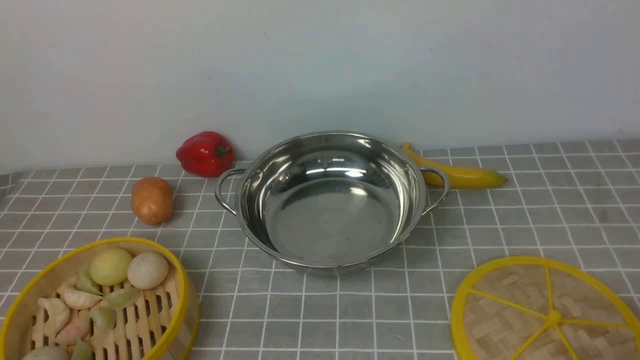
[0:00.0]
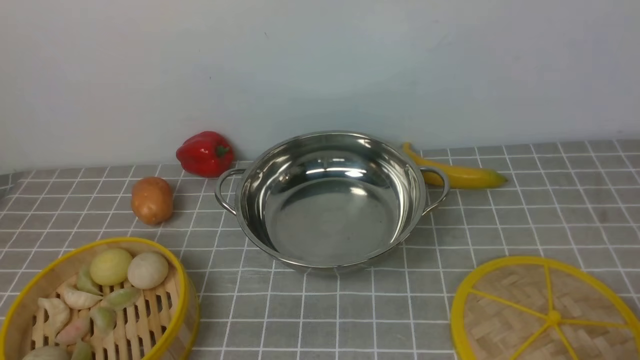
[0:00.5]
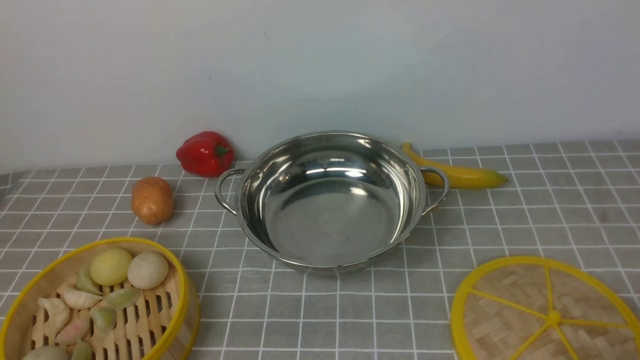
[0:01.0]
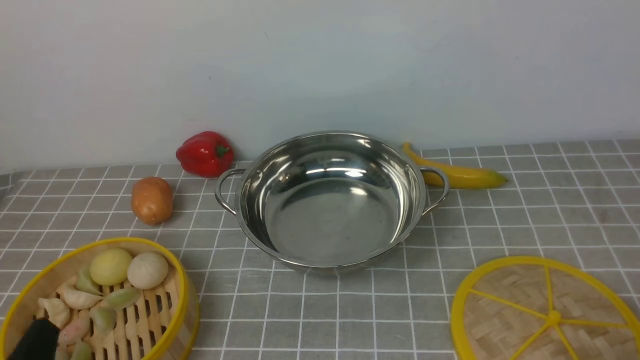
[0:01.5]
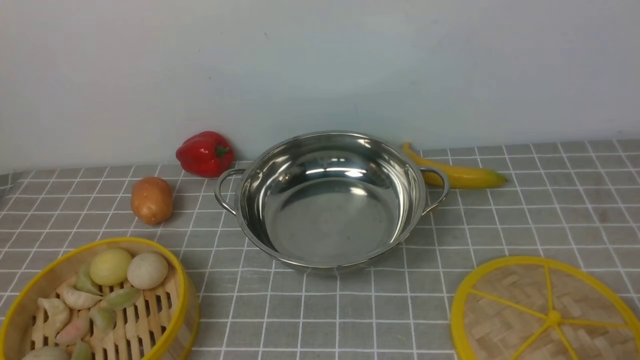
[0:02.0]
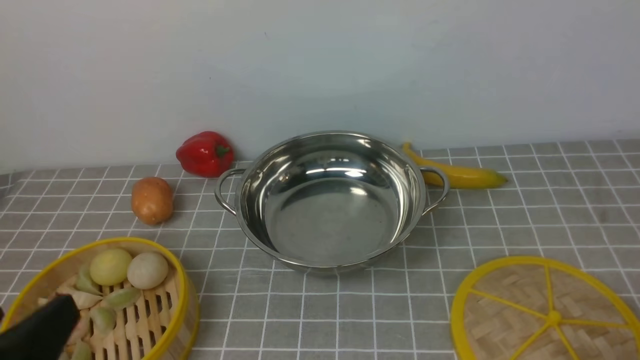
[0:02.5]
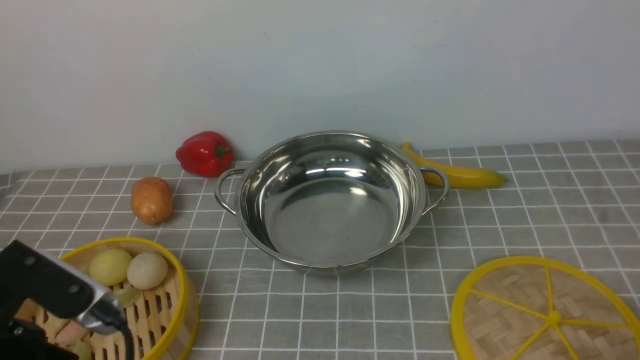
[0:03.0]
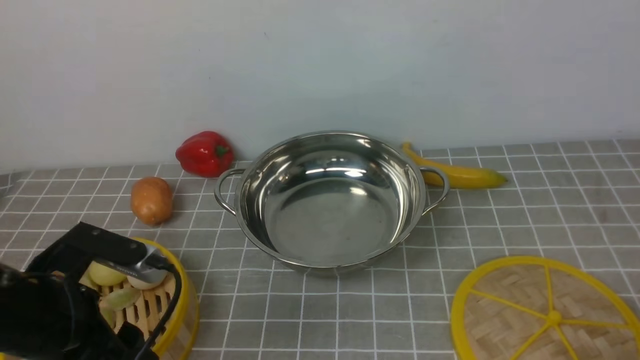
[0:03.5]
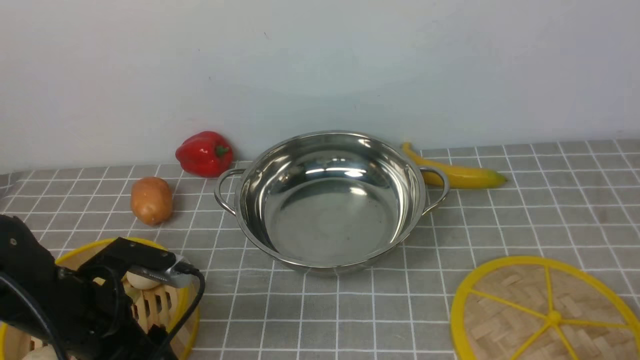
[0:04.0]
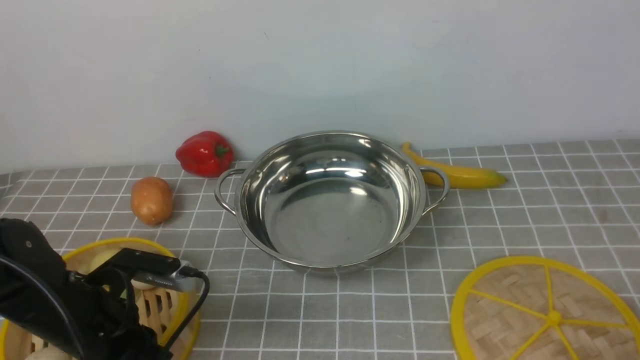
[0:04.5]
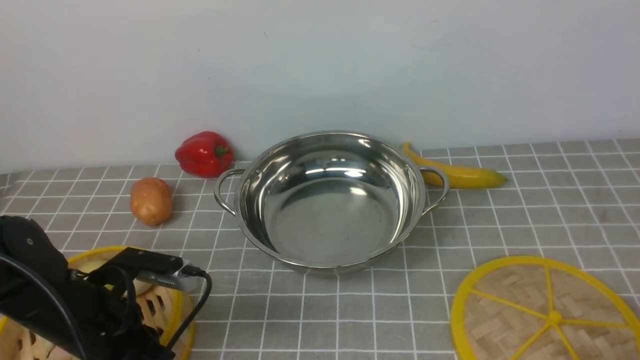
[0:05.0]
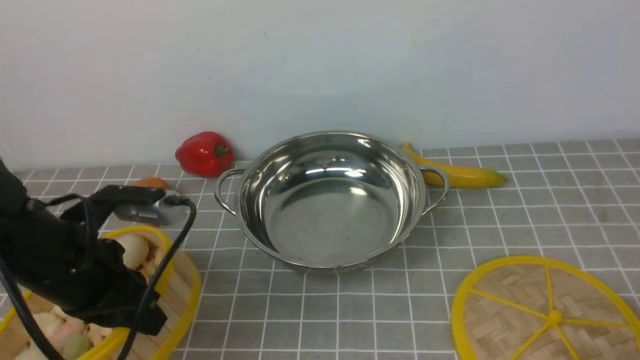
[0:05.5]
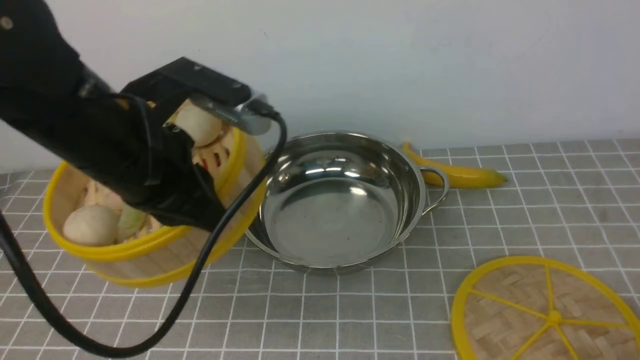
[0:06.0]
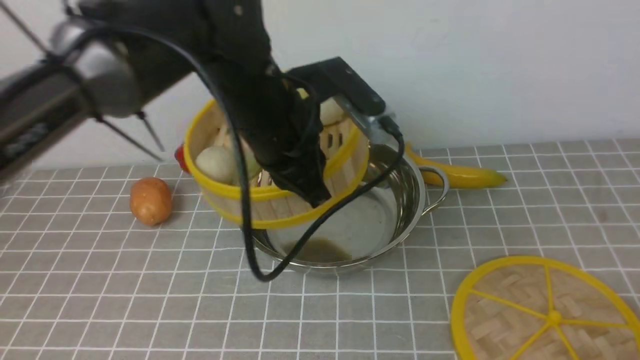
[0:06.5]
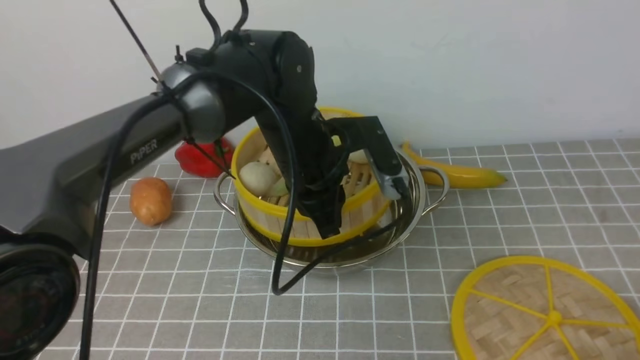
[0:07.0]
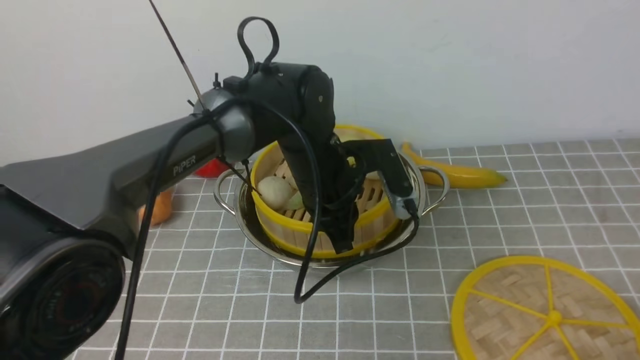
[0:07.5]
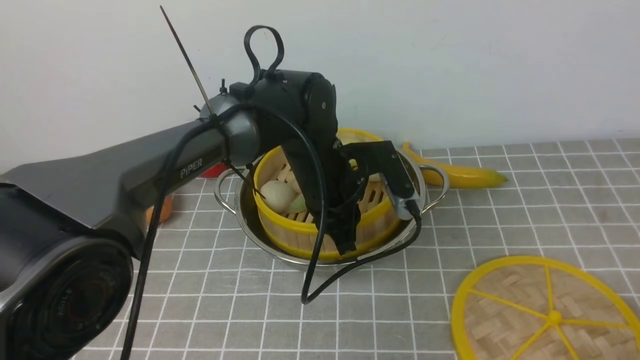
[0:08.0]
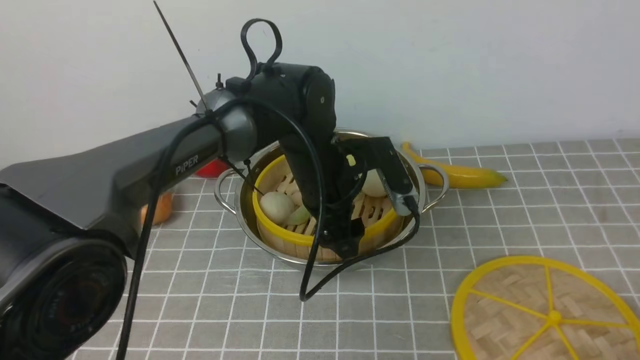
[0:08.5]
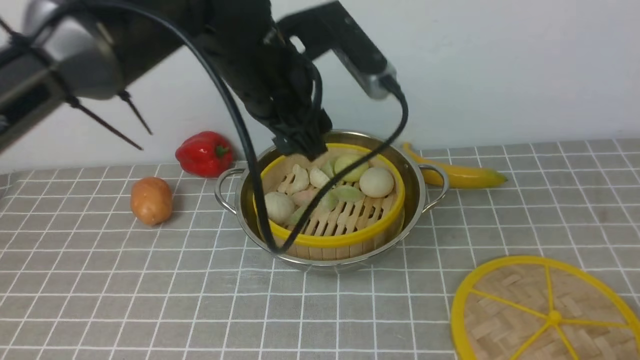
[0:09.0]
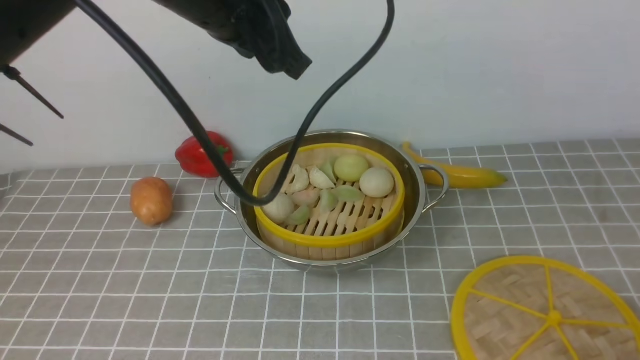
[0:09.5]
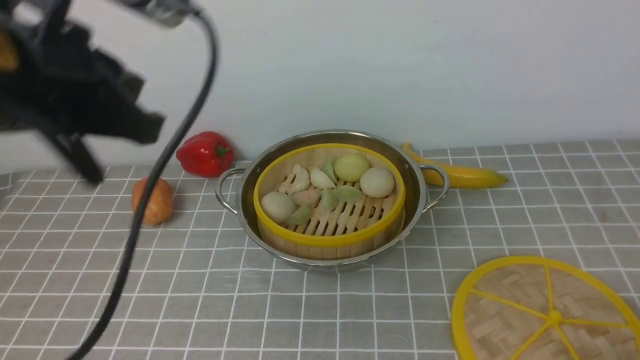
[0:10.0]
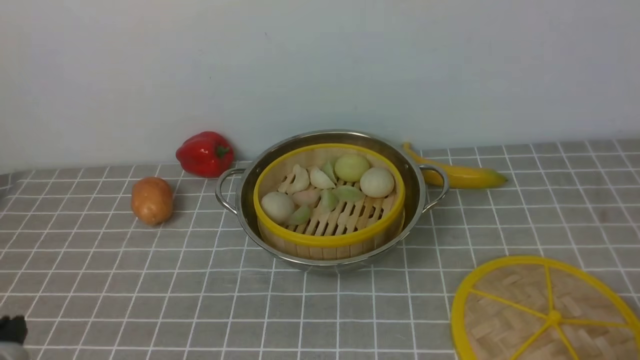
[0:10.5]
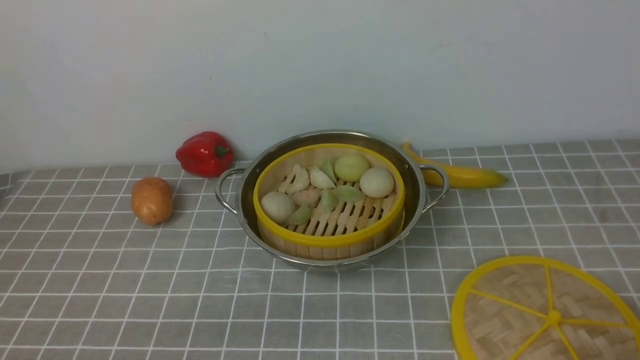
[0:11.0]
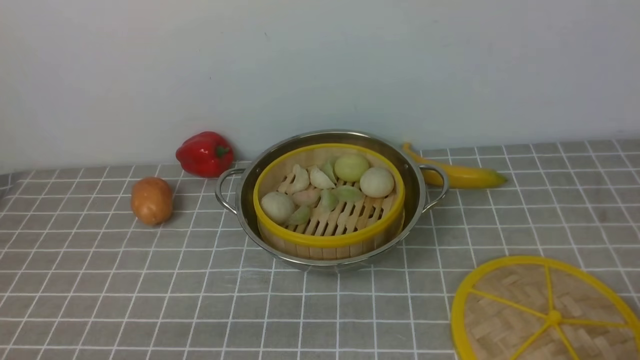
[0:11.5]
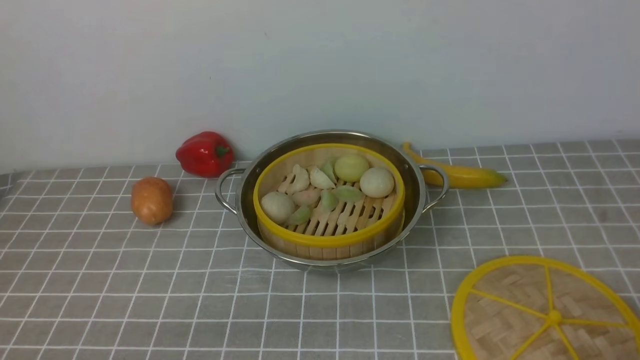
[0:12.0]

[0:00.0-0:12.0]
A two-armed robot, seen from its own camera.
Task of the whole recording: place the steamer in the pot on the grey tablecloth, and put the lid on the steamer.
Step, 0:00.0 to 0:05.0: use the left arm to lift the steamer closest to it.
Step, 0:05.5 to 0:08.5: use the left arm to put the steamer into the iron steamer pot in the middle.
0:02.0 to 0:04.0: The left gripper shifts approximately 15 cm forward.
0:04.0 to 0:06.0: The left gripper heads upward and to the right, covering some 20 cm, and closes its fingers.
0:06.0 to 0:08.0: The left gripper travels downward, to the right and forward by approximately 20 cm.
0:08.0 to 0:10.0: The left gripper goes approximately 30 cm upward, to the left and backward, and opens and closes again.
0:10.0 to 0:12.0: The left gripper is displaced downward and backward by some 25 cm.

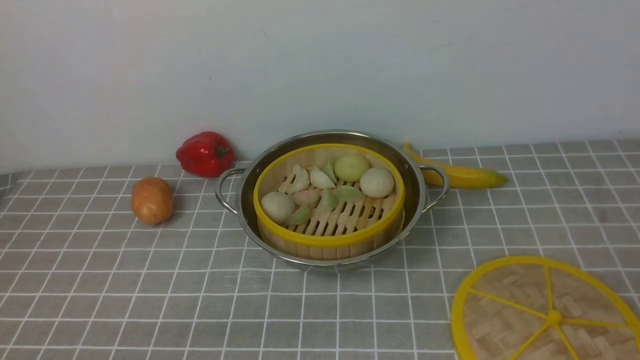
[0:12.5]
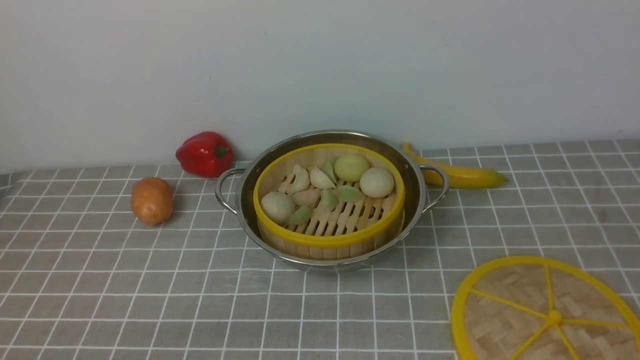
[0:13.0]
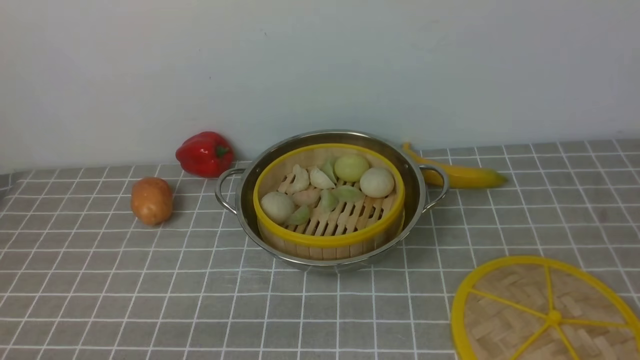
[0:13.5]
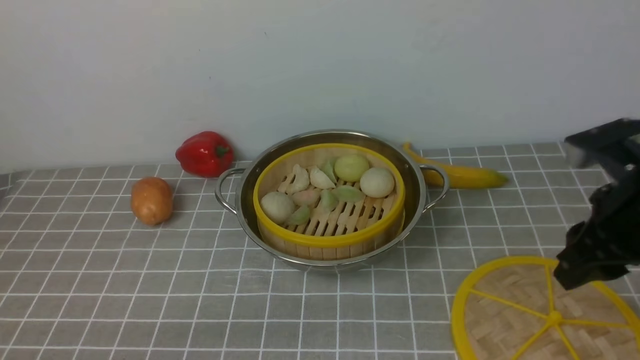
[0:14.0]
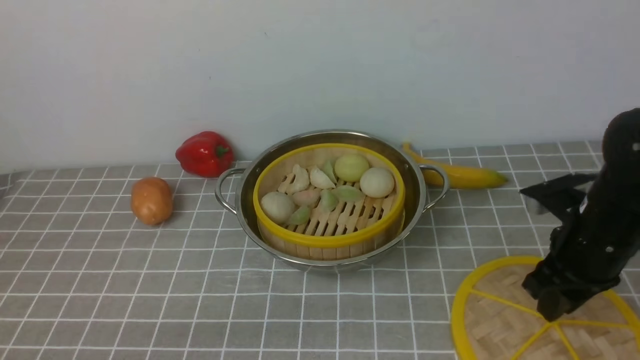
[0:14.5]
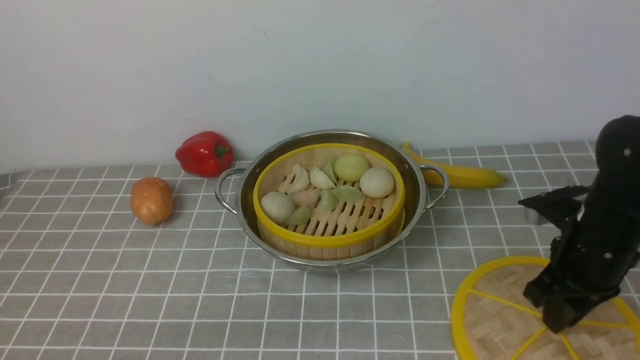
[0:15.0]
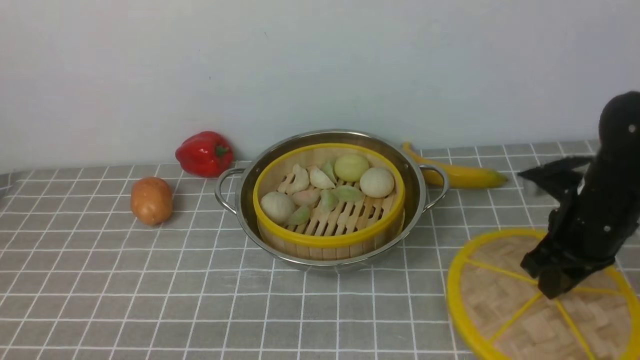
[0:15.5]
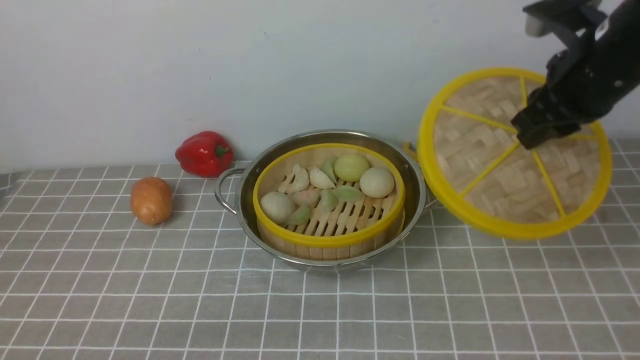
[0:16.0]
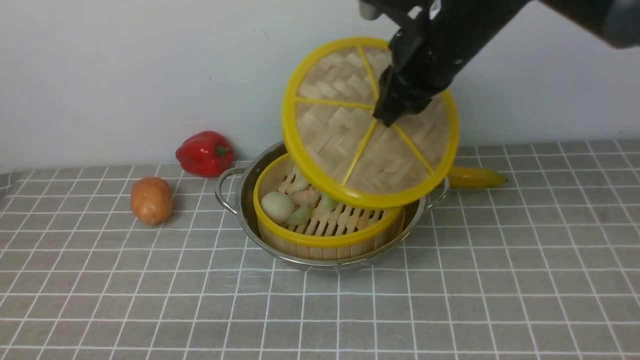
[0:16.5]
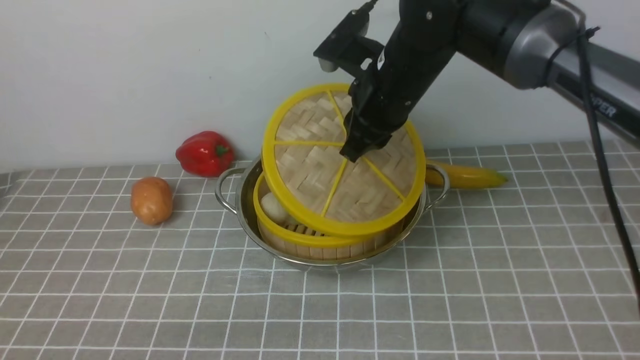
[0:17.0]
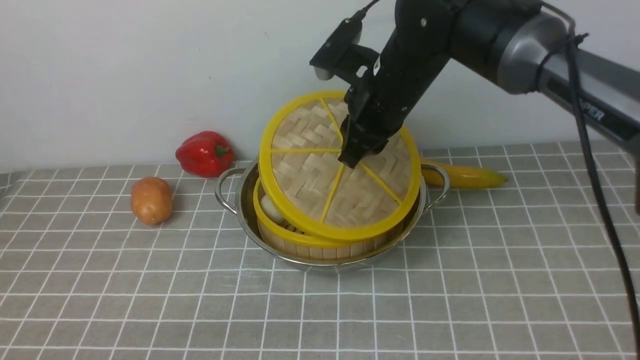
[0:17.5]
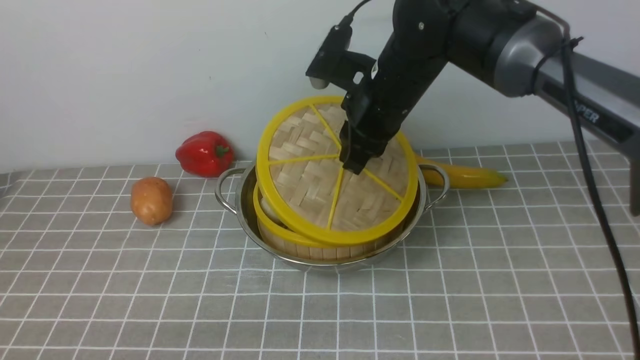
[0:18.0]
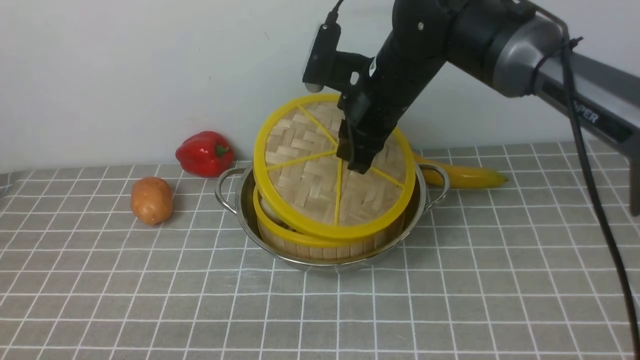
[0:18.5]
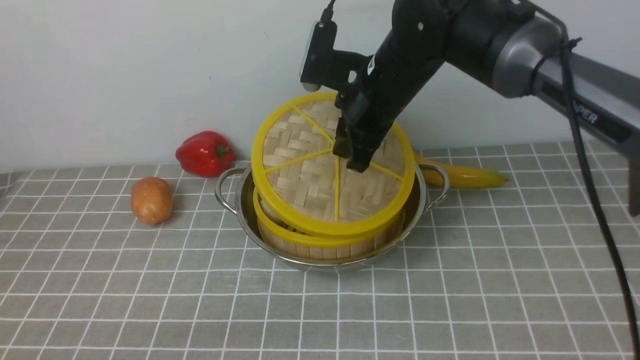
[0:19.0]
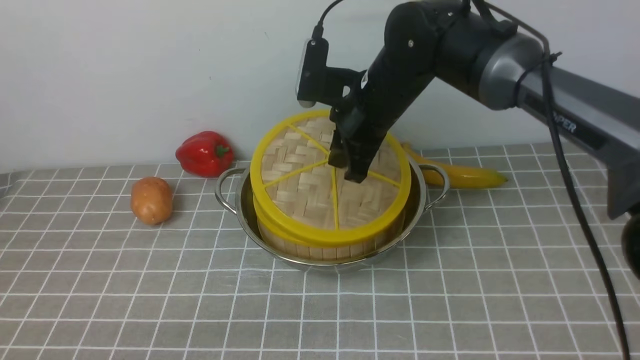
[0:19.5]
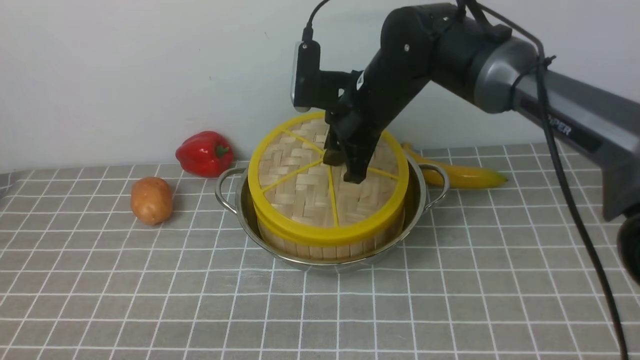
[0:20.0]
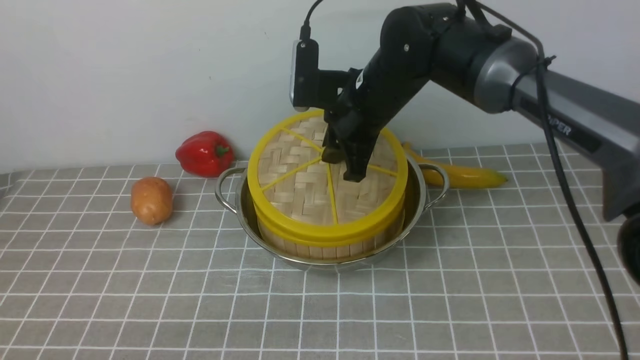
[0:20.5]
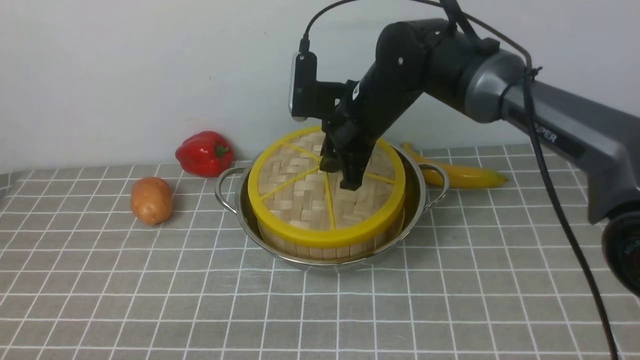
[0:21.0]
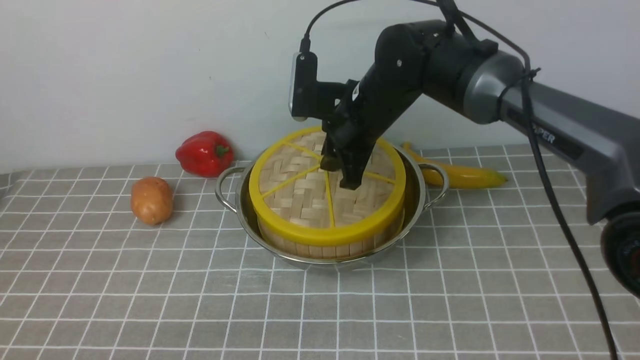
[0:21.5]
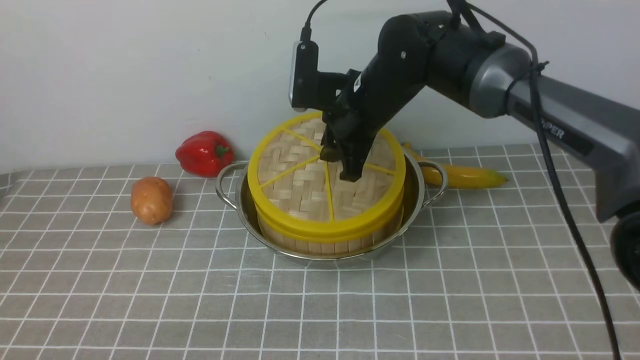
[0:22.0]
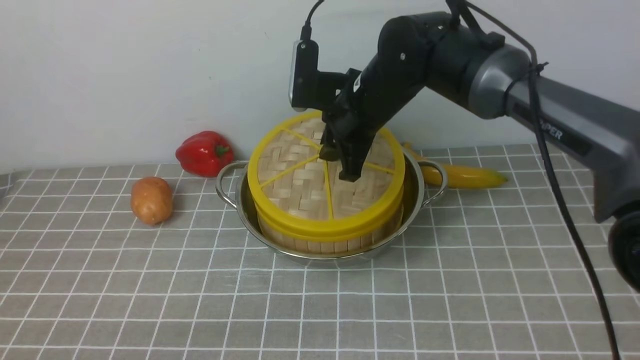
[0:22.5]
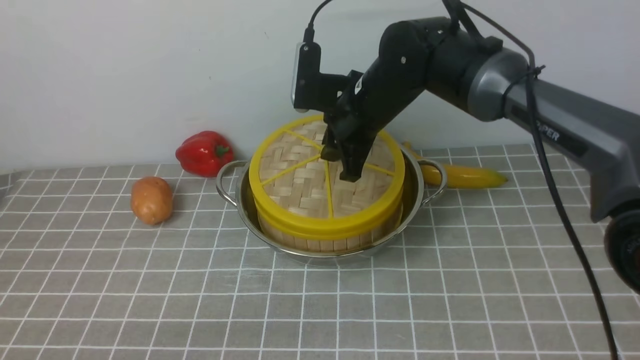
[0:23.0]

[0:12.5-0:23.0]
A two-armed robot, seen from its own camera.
Task of the whole recording: place the steamer in the pot on the grey tablecloth, and put the lid on the steamer.
Step, 0:12.5 to 0:15.0: use the right arm to lift the lid of the steamer.
0:12.5 to 0:14.5: The right gripper shifts approximately 25 cm forward.
0:14.5 to 0:16.5: The right gripper shifts approximately 25 cm upward, to the left and forward, and closes up.
0:16.5 to 0:19.0: The right gripper moves downward, roughly 5 cm.
0:19.0 to 0:21.0: There are only small adjustments of the grippers.
0:21.0 to 0:23.0: Both grippers stay about where they are.
